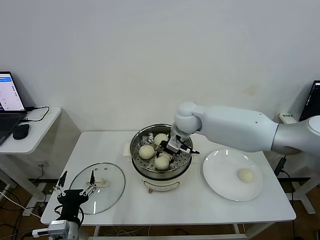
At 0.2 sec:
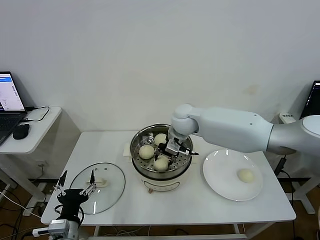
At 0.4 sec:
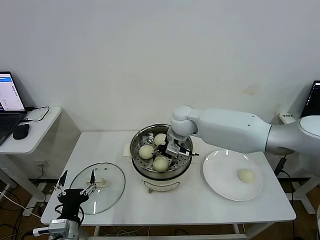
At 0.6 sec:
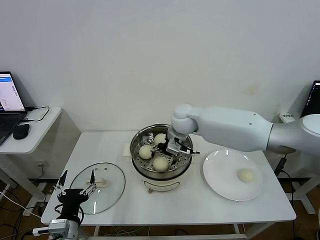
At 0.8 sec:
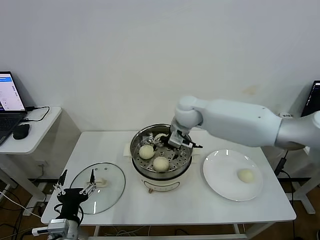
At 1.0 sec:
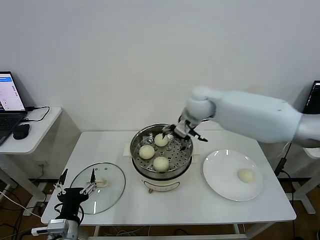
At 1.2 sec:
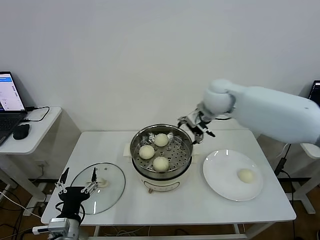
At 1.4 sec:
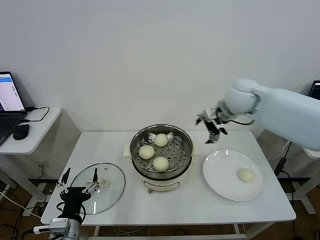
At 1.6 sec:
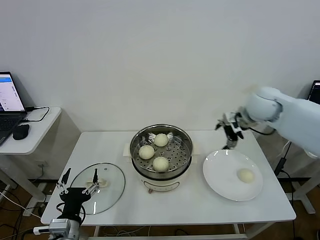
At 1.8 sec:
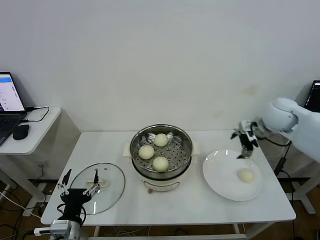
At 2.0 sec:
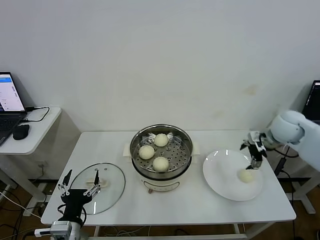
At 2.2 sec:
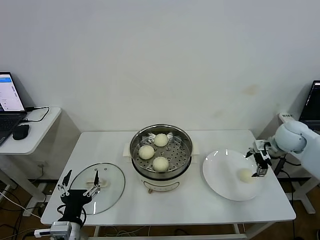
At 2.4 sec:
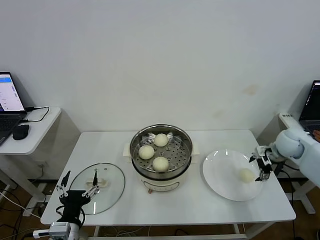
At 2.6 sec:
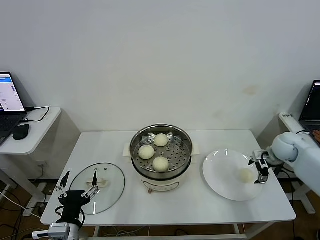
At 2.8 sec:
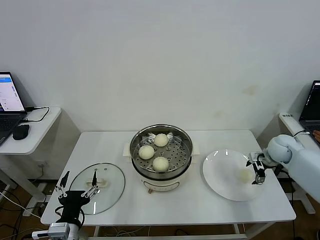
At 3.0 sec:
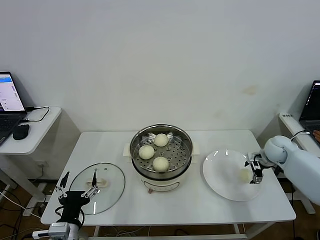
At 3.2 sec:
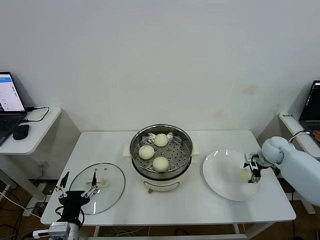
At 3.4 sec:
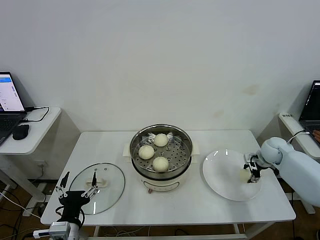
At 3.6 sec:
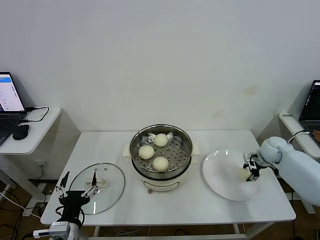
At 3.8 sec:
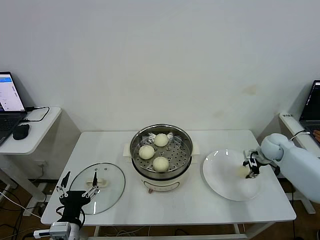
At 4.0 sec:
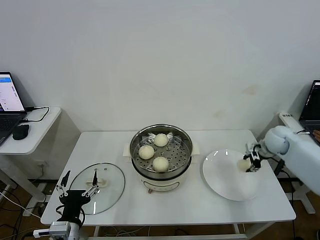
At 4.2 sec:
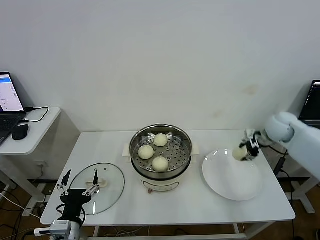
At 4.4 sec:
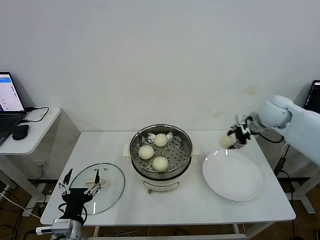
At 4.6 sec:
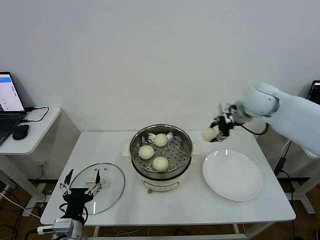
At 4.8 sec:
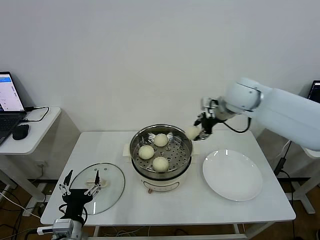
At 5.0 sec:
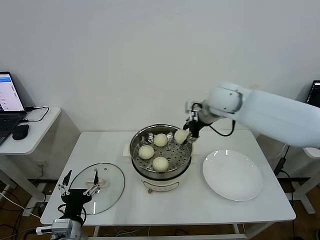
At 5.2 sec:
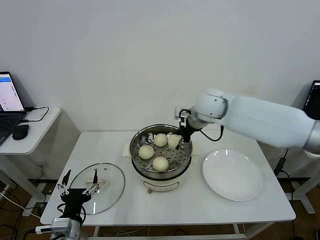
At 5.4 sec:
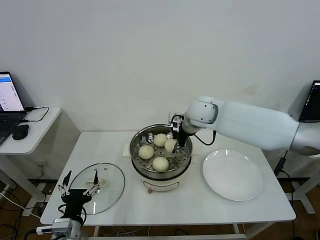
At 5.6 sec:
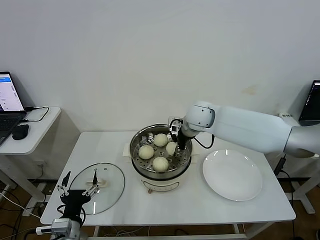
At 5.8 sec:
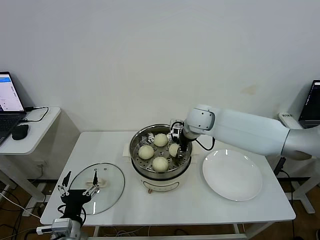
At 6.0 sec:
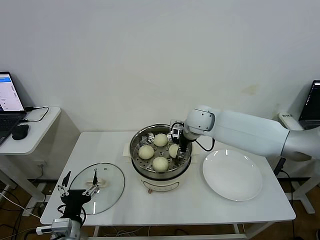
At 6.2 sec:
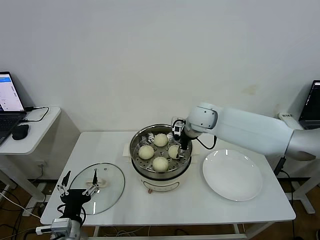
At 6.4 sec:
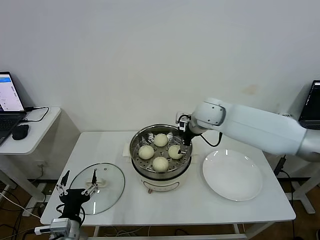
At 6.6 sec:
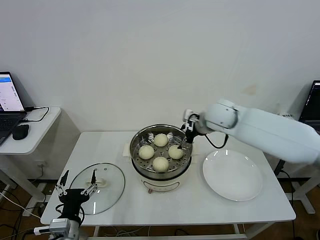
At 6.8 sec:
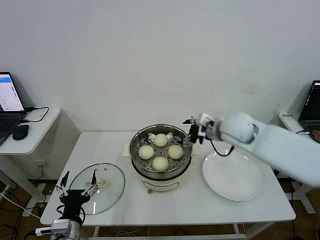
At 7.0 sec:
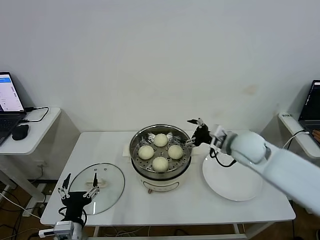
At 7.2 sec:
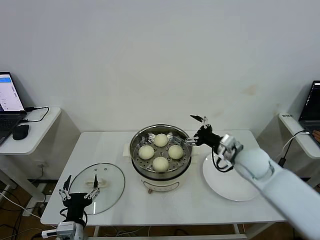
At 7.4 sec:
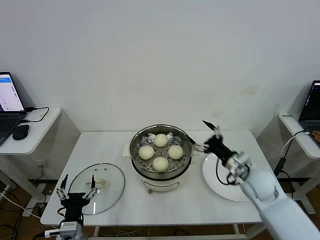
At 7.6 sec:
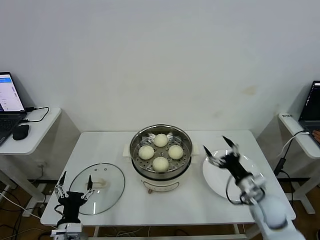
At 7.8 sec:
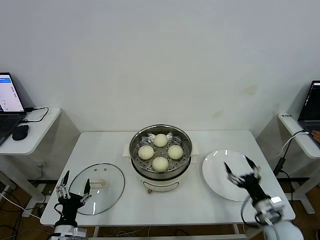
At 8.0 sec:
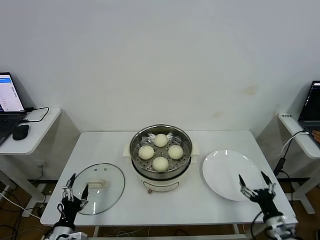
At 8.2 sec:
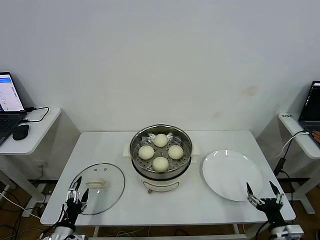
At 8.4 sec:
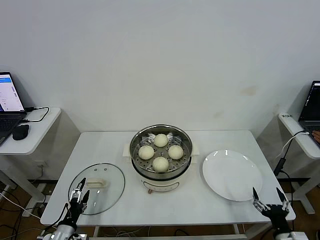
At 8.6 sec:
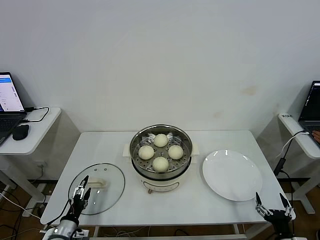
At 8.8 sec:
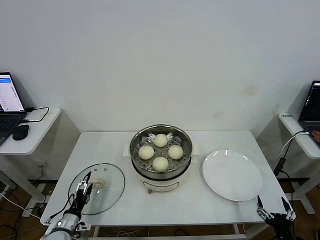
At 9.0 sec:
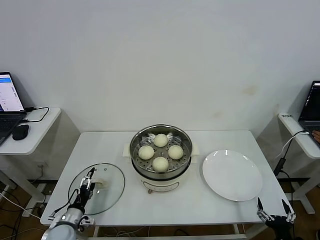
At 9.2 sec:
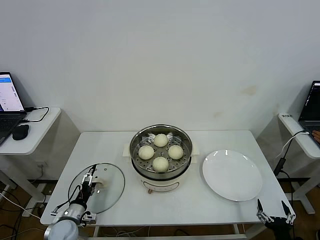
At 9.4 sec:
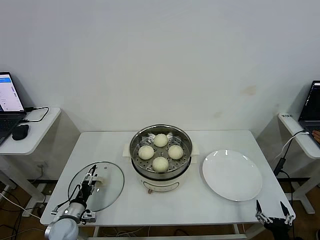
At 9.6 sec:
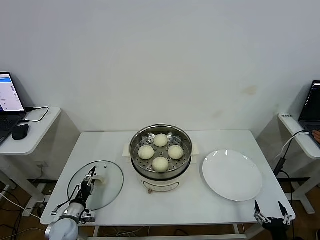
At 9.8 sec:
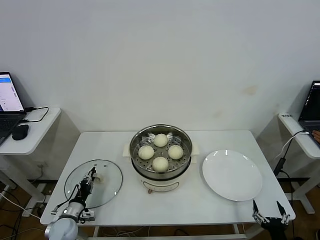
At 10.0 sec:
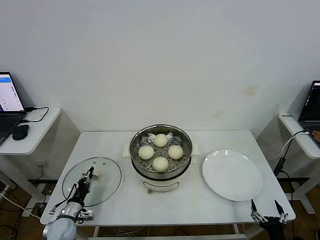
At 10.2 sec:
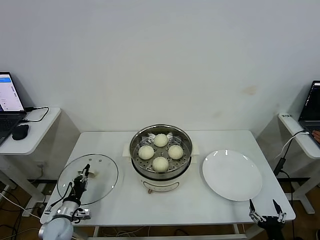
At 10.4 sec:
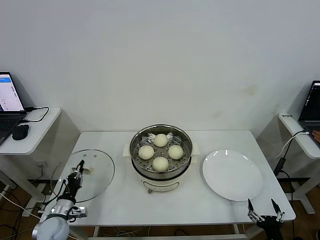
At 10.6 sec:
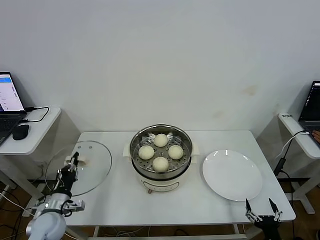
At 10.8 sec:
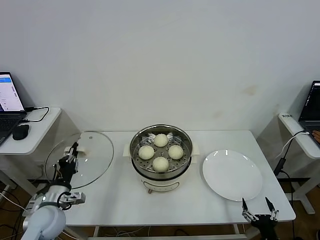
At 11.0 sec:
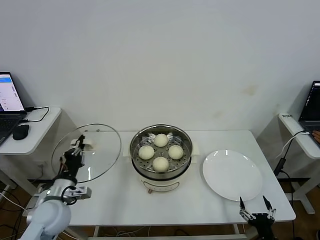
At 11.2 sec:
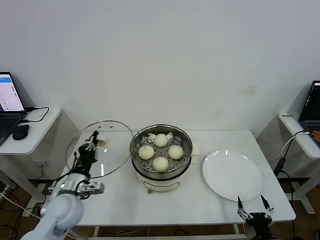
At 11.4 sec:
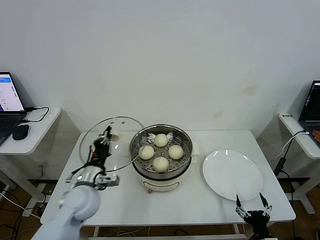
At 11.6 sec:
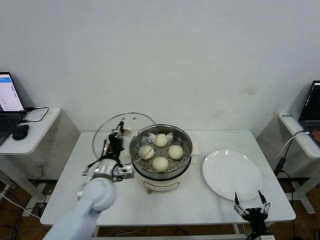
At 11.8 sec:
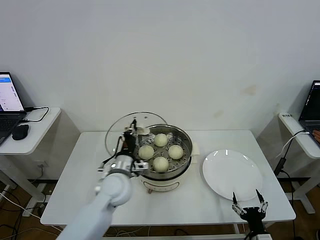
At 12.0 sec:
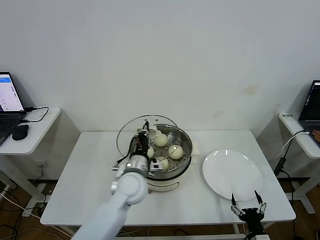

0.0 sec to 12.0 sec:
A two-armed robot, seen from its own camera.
Step, 1.0 sec to 3.2 sec: Grasp the baozi in the plate with right gripper.
Step, 3.4 sec to 6.2 sec: Place the baozi on the steamer with right gripper.
Step, 6.6 sec to 10.2 sec: Grasp the pot lid with left gripper.
0.0 sec to 1.6 sec: The right gripper heads to the right, covering approximately 25 cm, and opens its fingers.
1.6 sec to 3.0 sec: The right gripper moves downward and to the right, some 25 cm.
3.0 sec to 4.4 sec: The right gripper goes roughly 20 cm upward and to the left, and closes.
4.4 sec to 6.0 sec: The right gripper is displaced to the left by some 20 cm.
6.0 sec to 7.6 sec: The right gripper heads backward, to the right and downward, covering approximately 35 cm, and opens. Meanwhile the left gripper ends up approximately 5 cm from where it was.
7.6 sec to 9.0 sec: The left gripper is displaced downward, to the left and forward by roughly 15 cm; the right gripper heads backward and downward, covering approximately 20 cm.
9.0 sec to 10.4 sec: The left gripper closes.
10.4 sec to 12.0 sec: The left gripper goes about 30 cm to the right and upward. Meanwhile the right gripper moves to the left, some 5 cm.

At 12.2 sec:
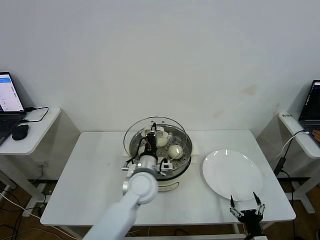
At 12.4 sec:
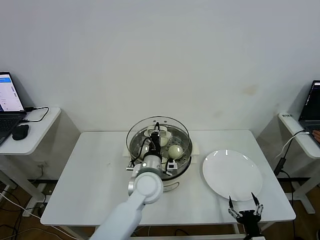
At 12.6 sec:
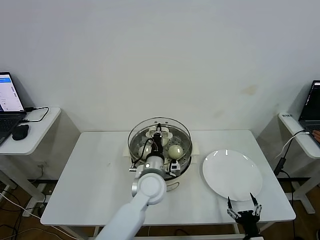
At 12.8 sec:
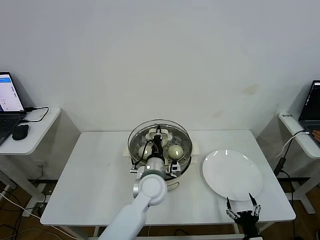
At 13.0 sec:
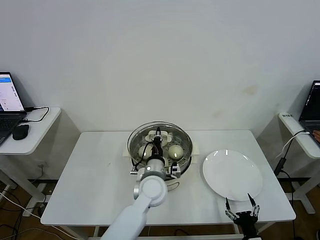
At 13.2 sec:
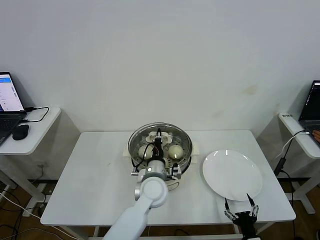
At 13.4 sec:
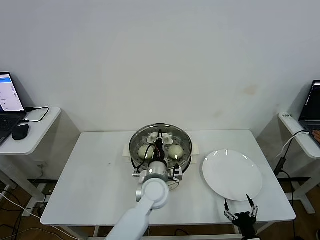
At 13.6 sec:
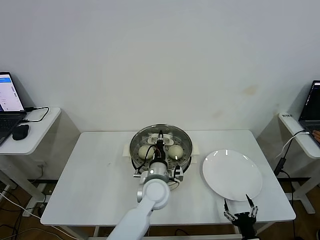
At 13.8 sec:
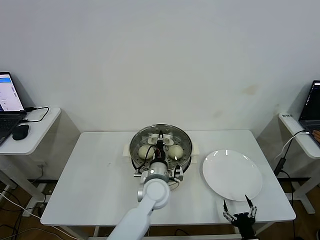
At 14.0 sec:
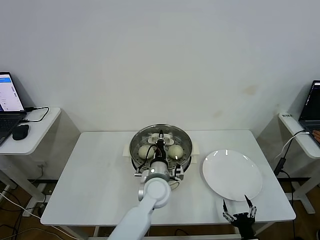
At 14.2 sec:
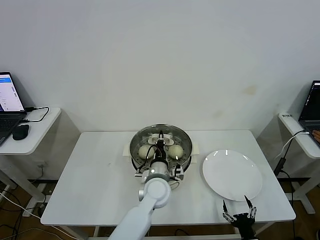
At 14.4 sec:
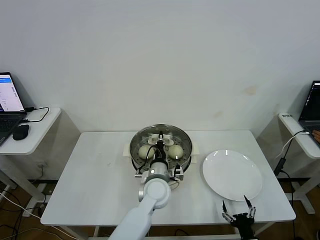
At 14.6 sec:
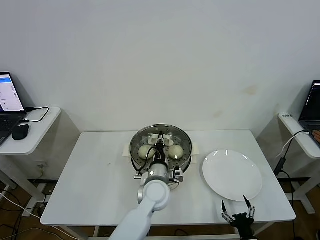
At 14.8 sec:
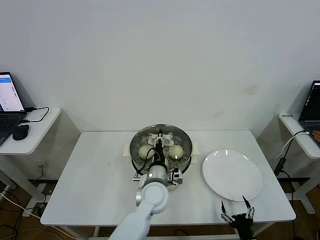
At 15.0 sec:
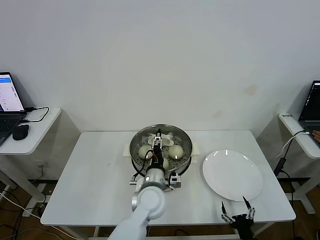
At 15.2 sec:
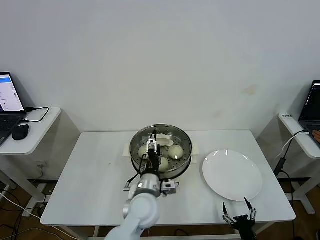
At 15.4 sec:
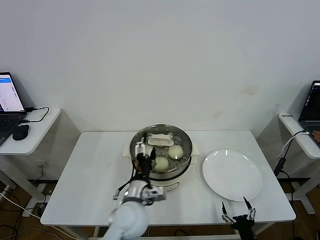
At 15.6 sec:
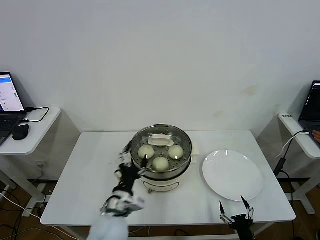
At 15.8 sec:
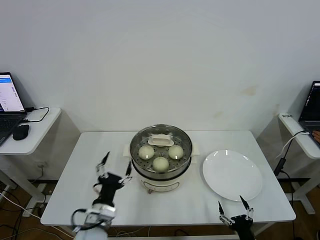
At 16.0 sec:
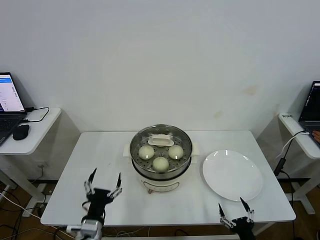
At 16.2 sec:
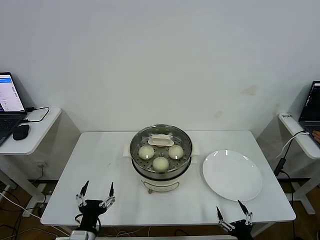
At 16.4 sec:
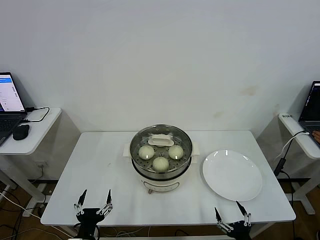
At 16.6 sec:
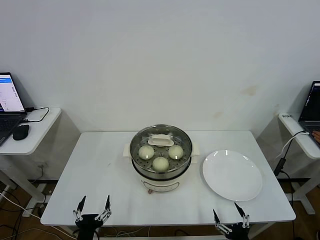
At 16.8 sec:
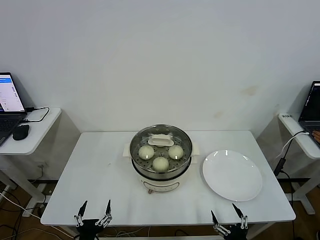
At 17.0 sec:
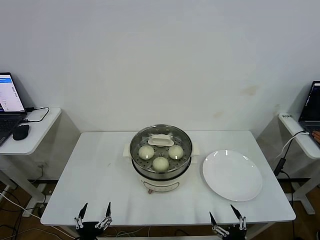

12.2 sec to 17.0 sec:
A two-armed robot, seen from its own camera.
Step, 12.2 sec to 15.2 sec: Place the pot lid on the steamer with left gripper.
12.2 sec to 13.8 sec: The left gripper shifts by roughly 5 cm.
13.8 sec to 15.4 sec: The left gripper travels backward and to the left by roughly 10 cm, and opens up.
15.4 sec to 17.0 sec: The left gripper is displaced backward, to the left and downward by some 25 cm. The right gripper changes place by approximately 5 cm.
